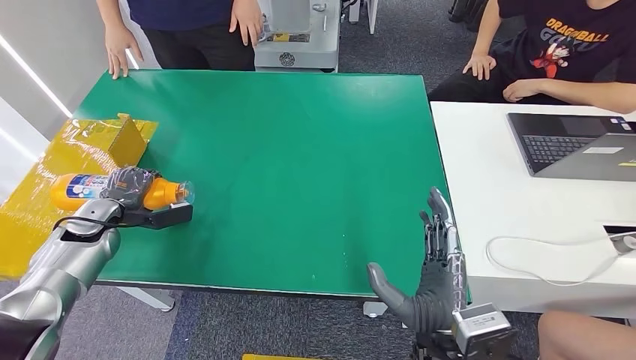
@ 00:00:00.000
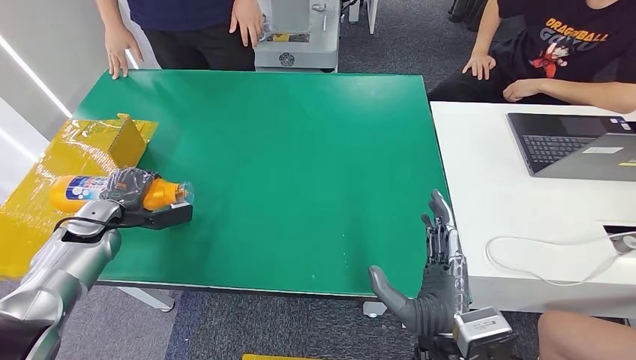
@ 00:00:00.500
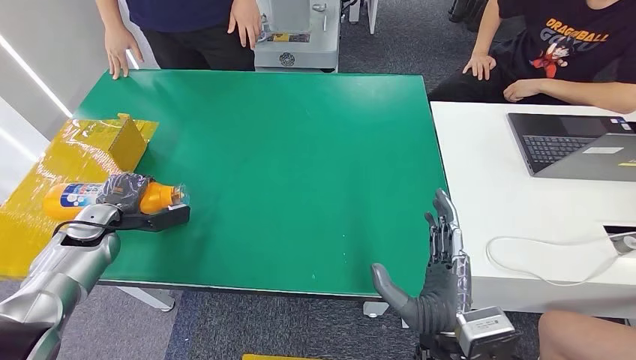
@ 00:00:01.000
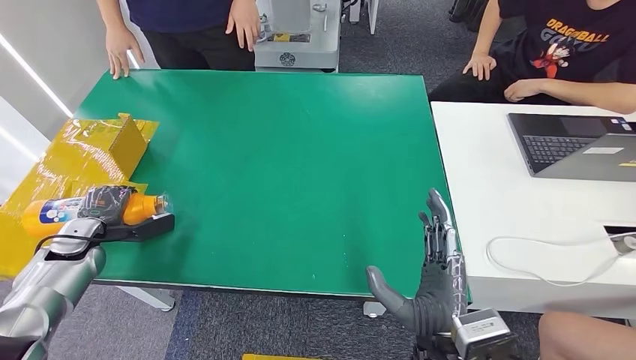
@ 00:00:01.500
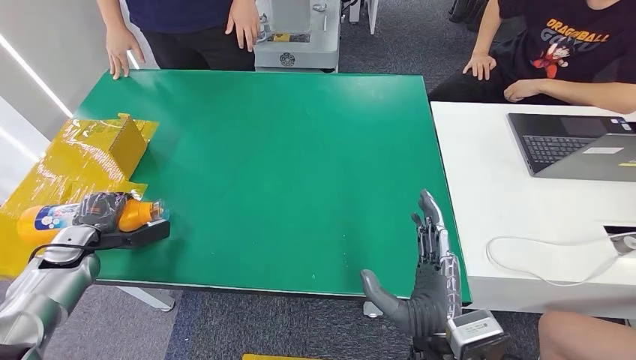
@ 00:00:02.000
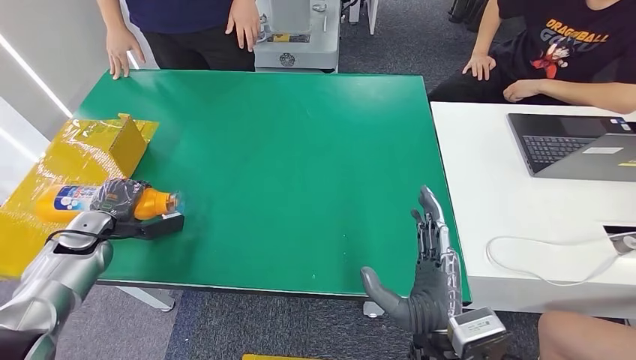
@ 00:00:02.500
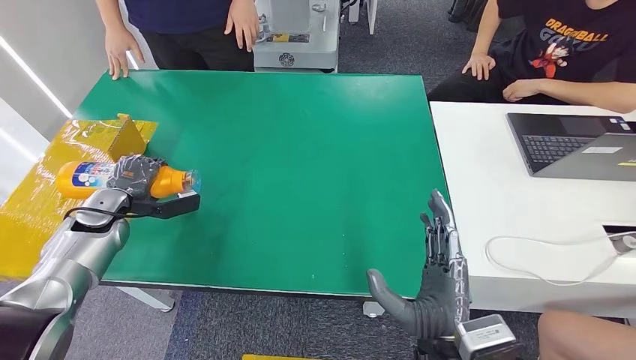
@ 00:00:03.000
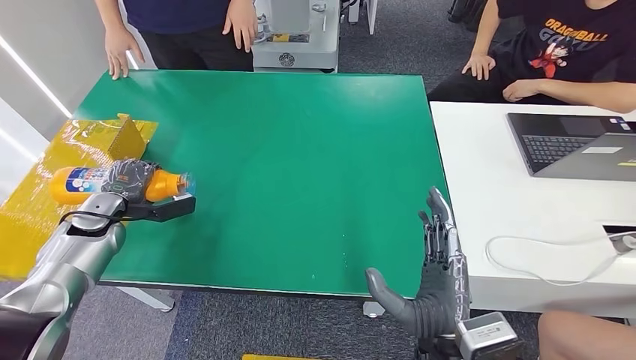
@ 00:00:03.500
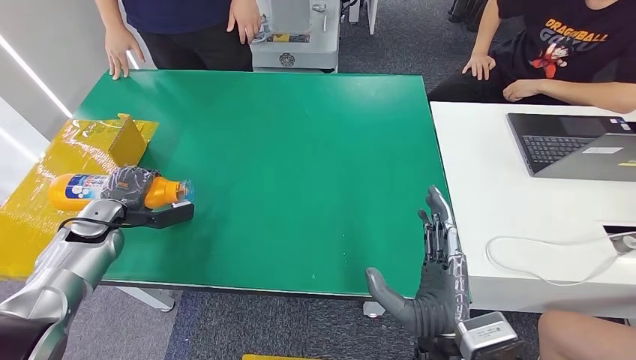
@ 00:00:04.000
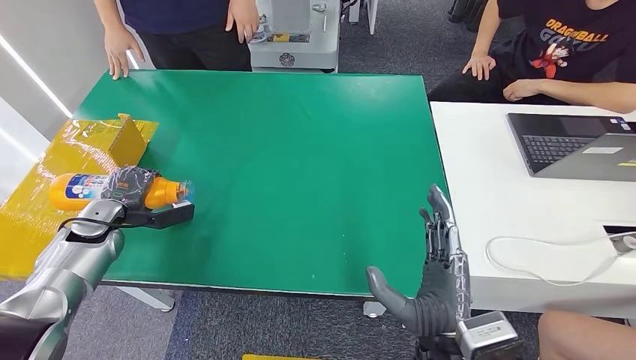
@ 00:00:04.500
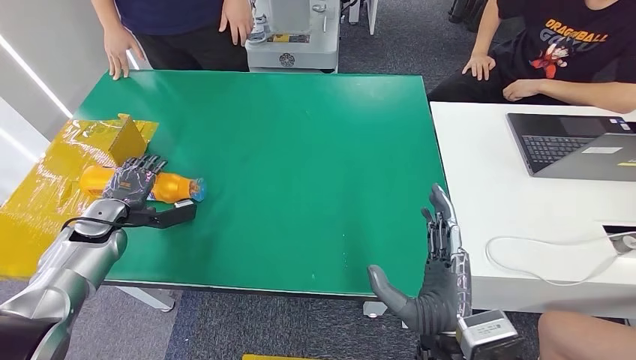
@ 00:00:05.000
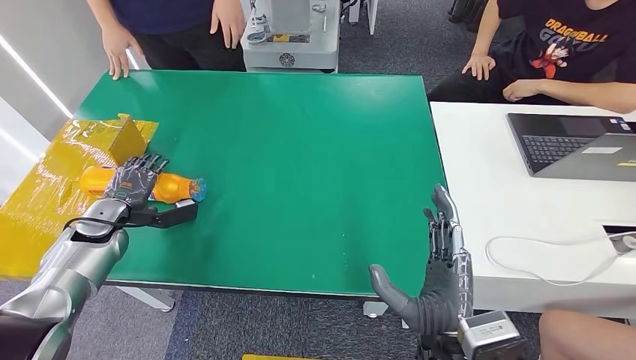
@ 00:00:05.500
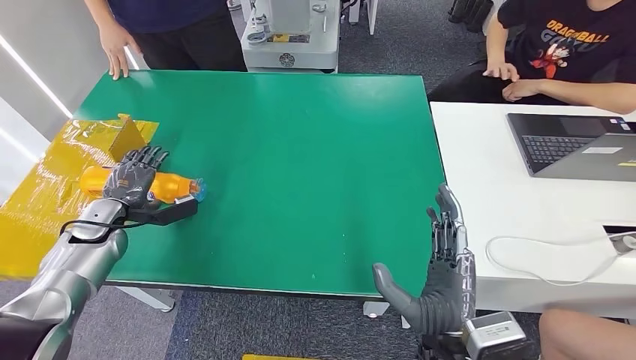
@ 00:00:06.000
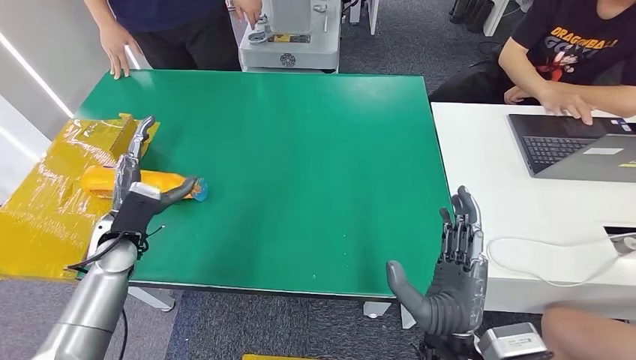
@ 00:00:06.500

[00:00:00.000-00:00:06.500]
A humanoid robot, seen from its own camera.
Step, 00:00:00.000 to 00:00:06.500: Turn the bottle to the front side.
00:00:00.000 to 00:00:02.000: The left hand shifts by approximately 5 cm.
00:00:02.000 to 00:00:04.500: The left hand shifts roughly 5 cm forward.
00:00:04.500 to 00:00:06.500: The left hand shifts approximately 10 cm to the right.
